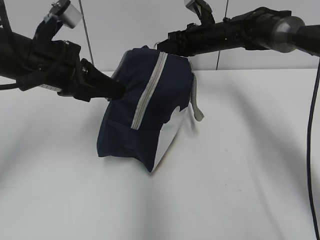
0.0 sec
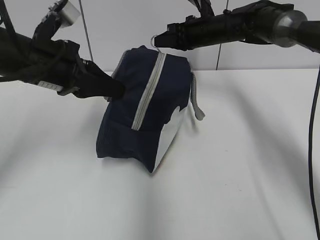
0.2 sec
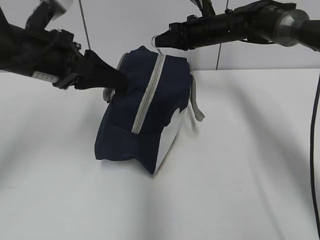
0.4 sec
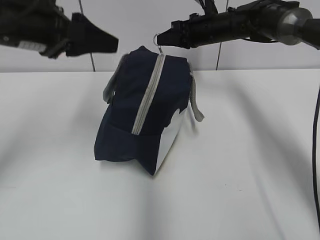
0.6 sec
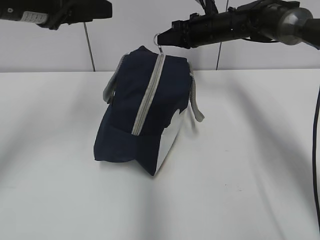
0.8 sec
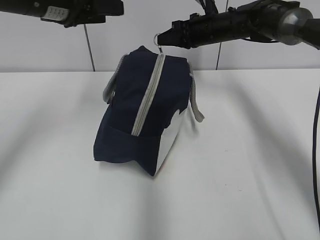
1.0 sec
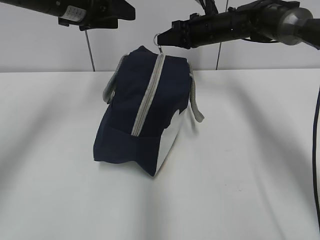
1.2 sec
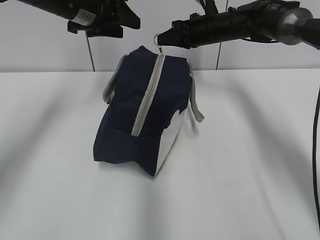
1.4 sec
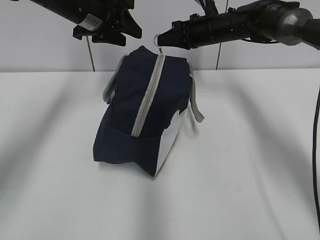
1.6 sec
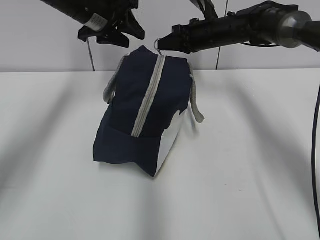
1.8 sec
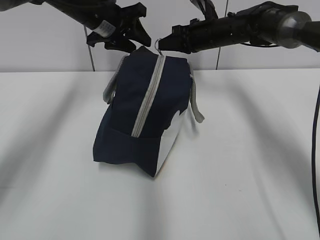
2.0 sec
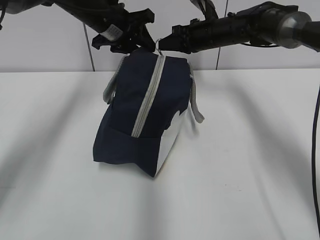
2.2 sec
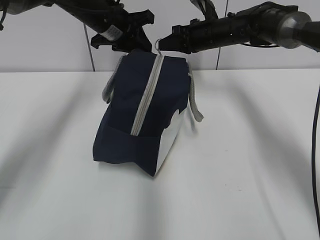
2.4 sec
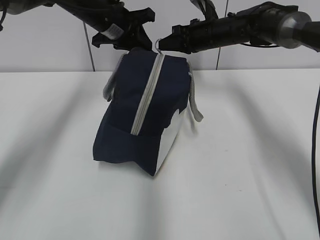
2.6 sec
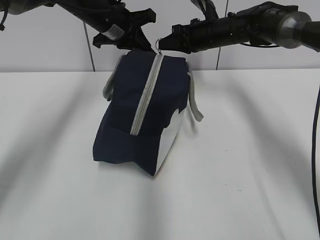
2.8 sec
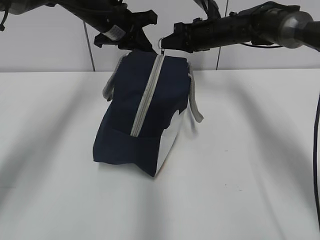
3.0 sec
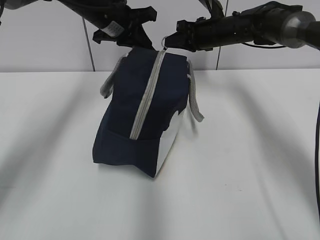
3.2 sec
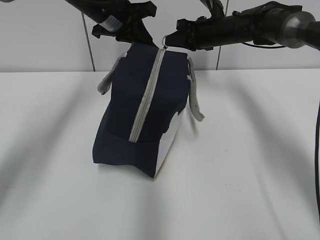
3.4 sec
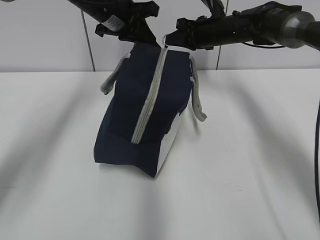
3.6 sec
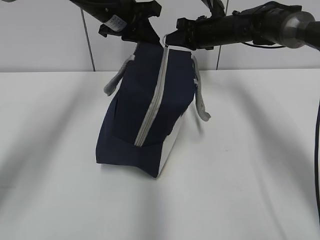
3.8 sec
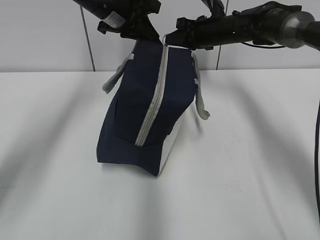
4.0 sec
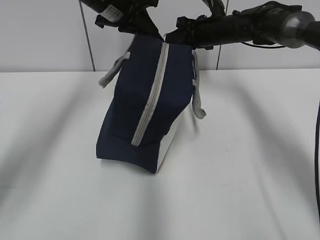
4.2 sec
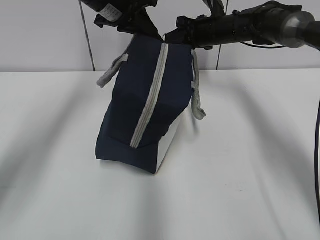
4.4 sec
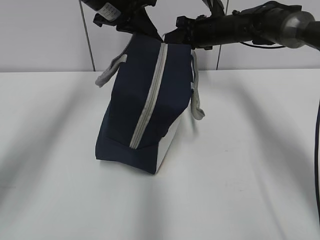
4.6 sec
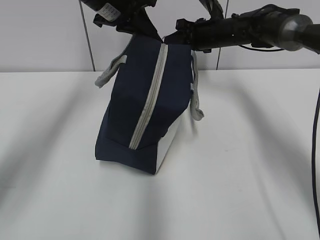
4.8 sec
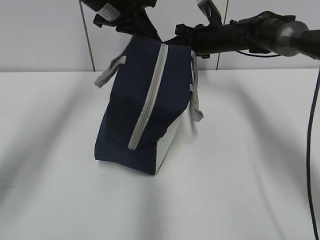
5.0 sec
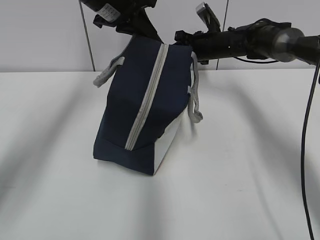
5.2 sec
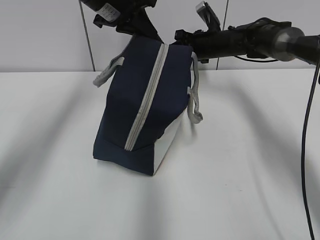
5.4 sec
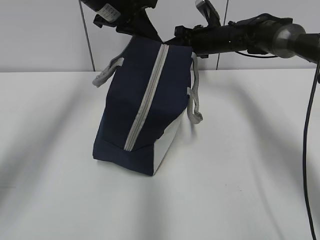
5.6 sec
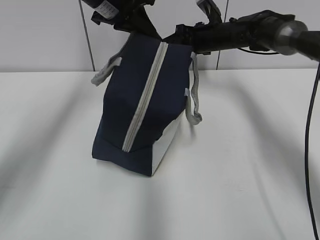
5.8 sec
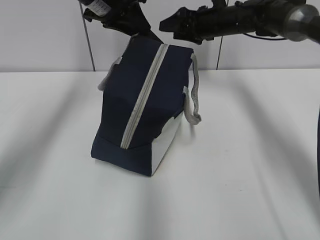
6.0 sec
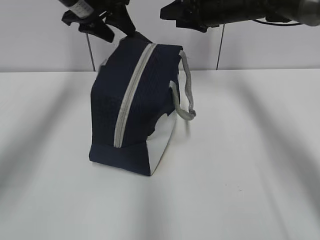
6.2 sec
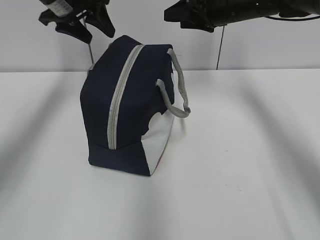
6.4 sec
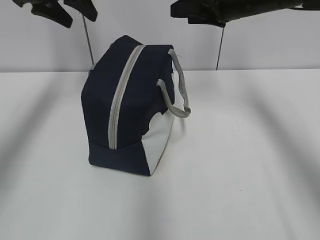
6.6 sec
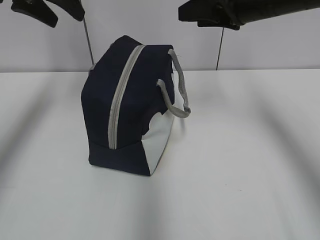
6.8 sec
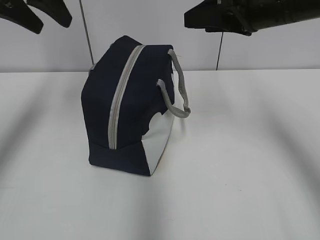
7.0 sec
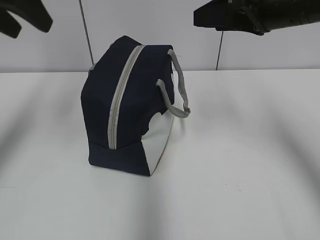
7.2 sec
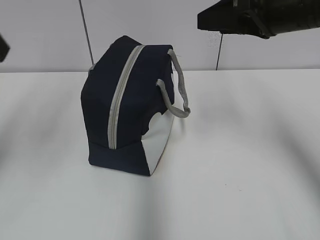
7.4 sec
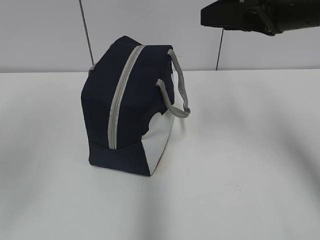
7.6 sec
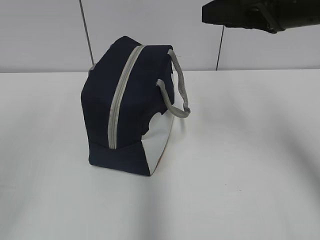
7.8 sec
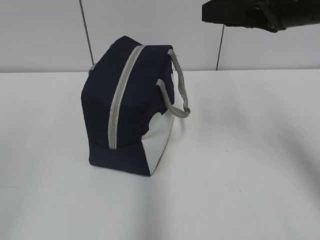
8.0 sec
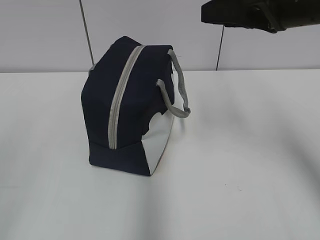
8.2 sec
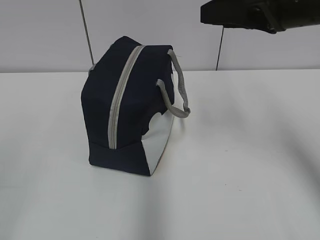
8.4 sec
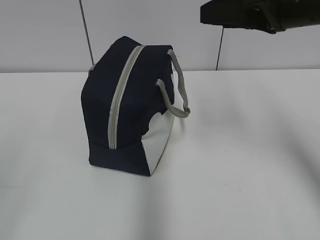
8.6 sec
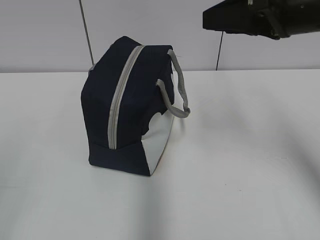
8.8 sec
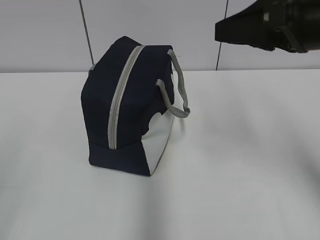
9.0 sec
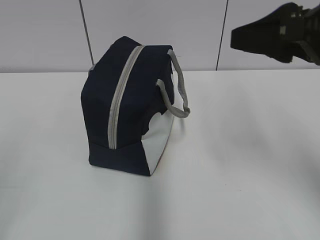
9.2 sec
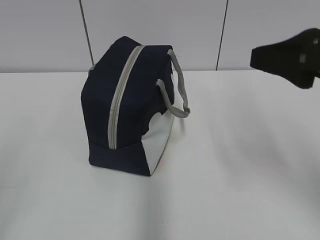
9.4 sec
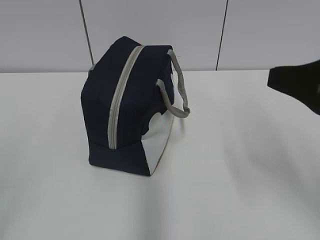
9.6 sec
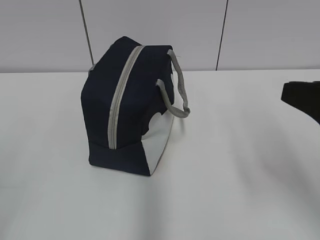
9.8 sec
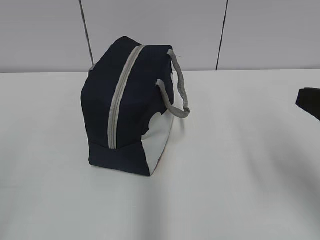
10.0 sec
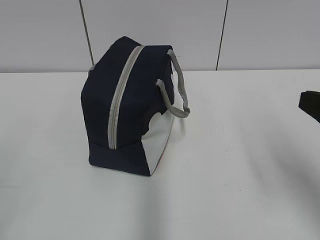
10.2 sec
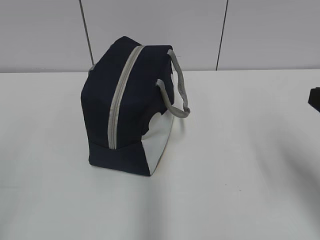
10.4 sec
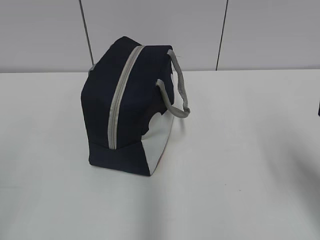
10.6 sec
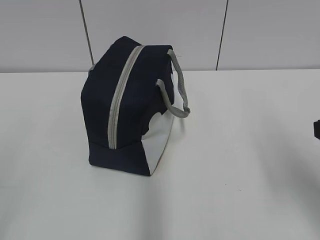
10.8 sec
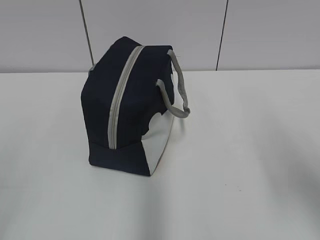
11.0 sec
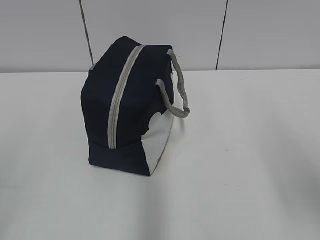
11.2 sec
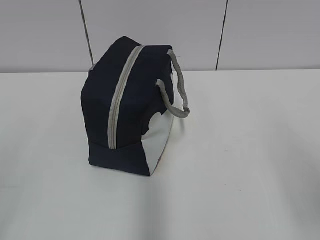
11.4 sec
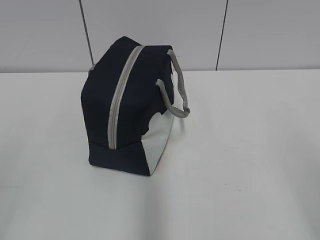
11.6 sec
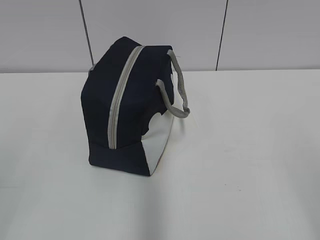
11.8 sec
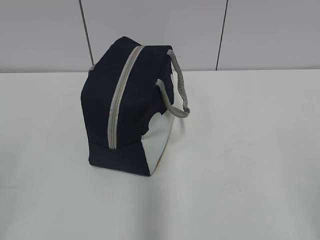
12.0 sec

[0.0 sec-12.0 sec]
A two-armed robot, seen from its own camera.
0.0 sec to 1.6 sec: The left gripper is displaced forward by some 15 cm, and opens its fingers.
1.6 sec to 3.0 sec: The left gripper closes.
3.0 sec to 4.4 sec: The left gripper ends up roughly 5 cm from where it was.
4.4 sec to 6.0 sec: The right gripper opens.
6.0 sec to 7.6 sec: The right gripper is displaced backward and upward by roughly 25 cm, while the left gripper goes some 35 cm backward and to the left, and opens up.
9.0 sec to 10.4 sec: The right gripper is displaced backward, downward and to the right by about 15 cm.
10.4 sec to 12.0 sec: The right gripper goes about 15 cm backward.

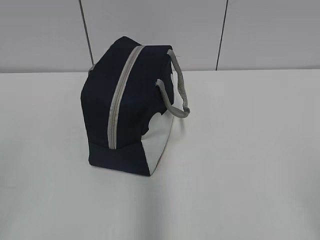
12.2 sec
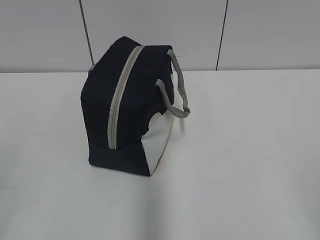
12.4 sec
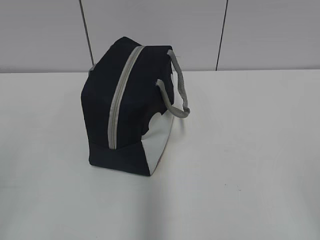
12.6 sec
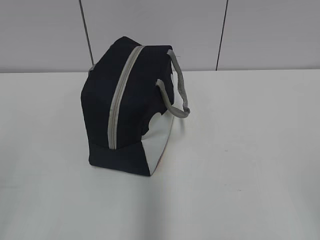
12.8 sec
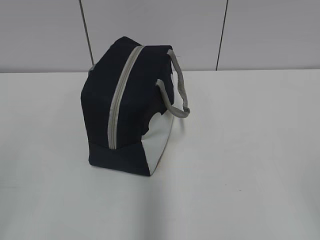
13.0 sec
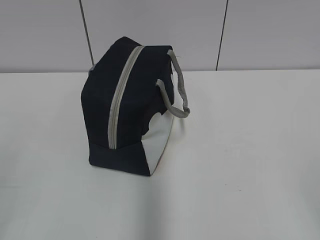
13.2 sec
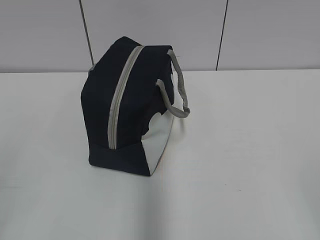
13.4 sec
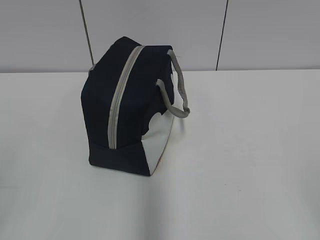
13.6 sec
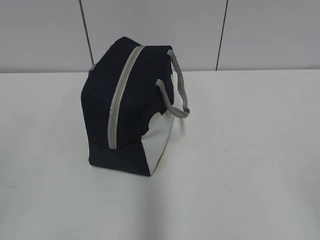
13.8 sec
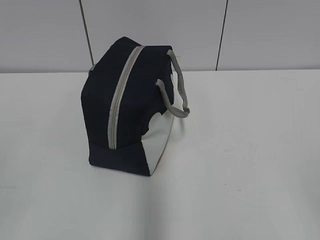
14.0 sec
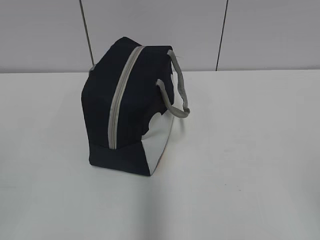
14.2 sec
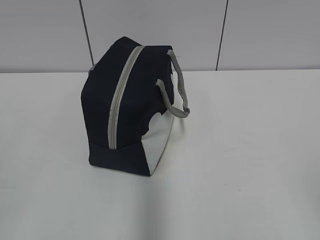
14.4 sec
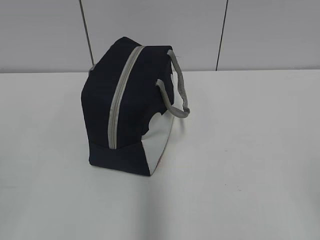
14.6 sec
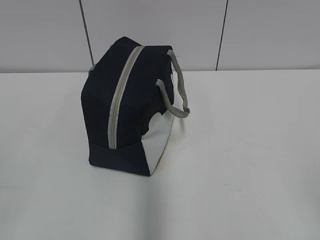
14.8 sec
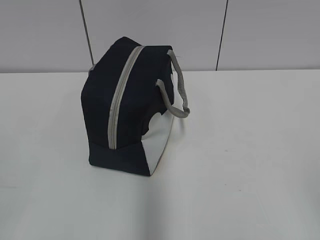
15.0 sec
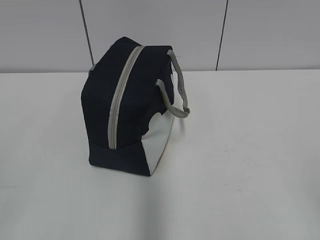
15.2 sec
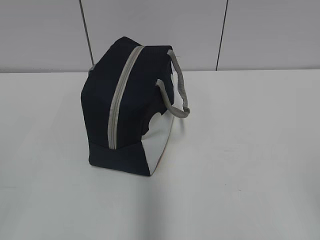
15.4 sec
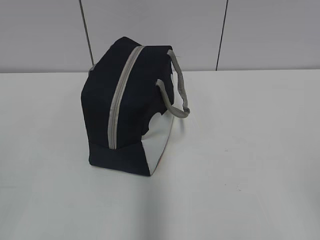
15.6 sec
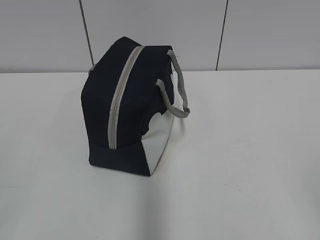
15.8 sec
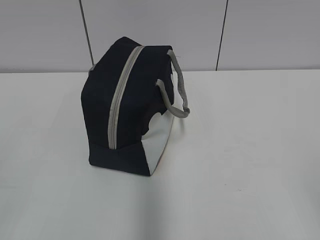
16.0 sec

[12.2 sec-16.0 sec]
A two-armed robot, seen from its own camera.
14.8 sec to 16.0 sec: Neither gripper changes place.

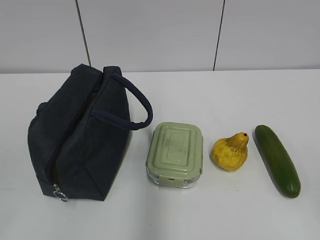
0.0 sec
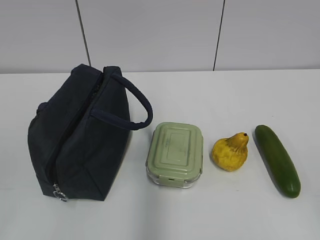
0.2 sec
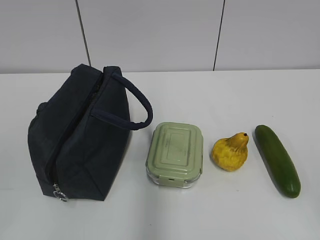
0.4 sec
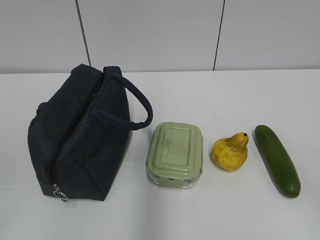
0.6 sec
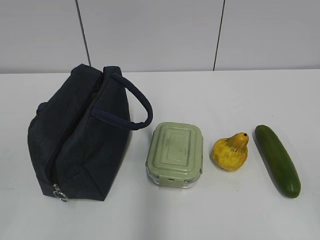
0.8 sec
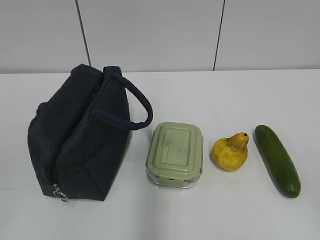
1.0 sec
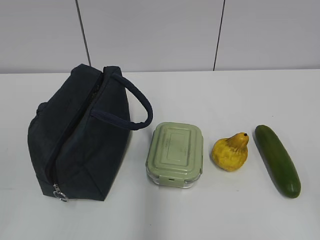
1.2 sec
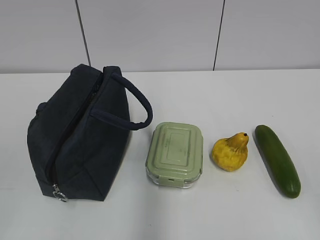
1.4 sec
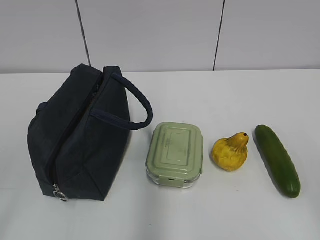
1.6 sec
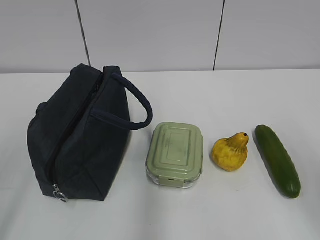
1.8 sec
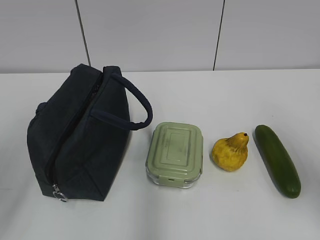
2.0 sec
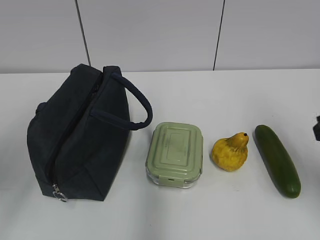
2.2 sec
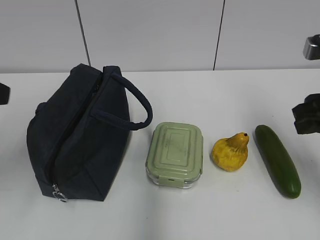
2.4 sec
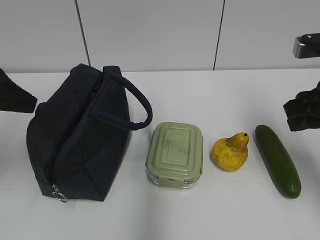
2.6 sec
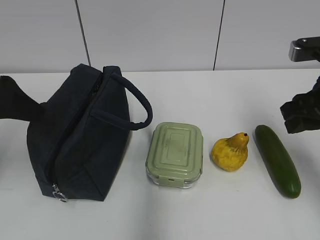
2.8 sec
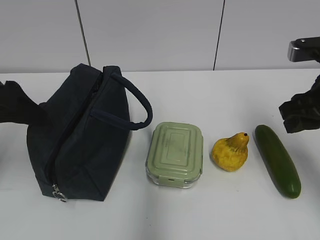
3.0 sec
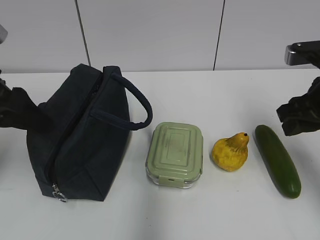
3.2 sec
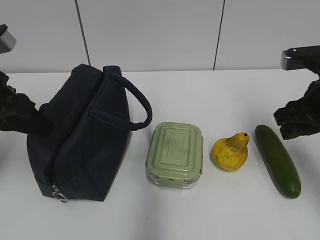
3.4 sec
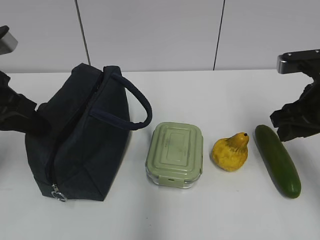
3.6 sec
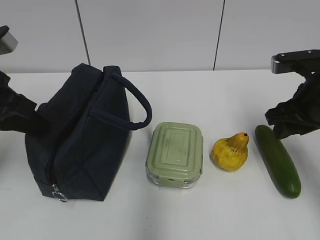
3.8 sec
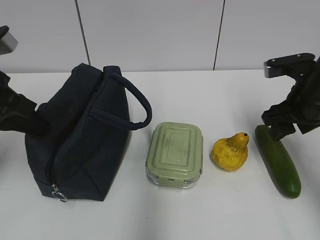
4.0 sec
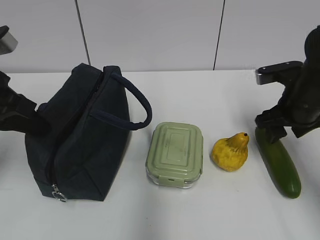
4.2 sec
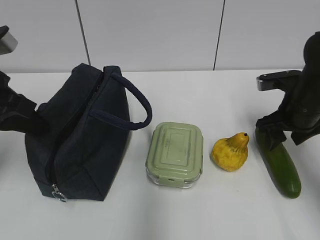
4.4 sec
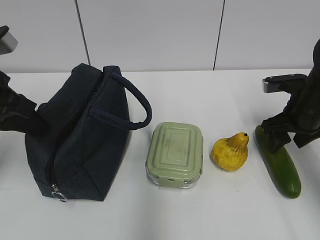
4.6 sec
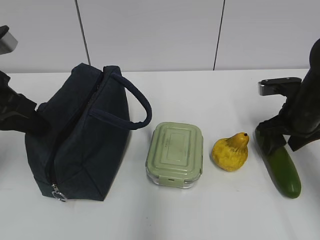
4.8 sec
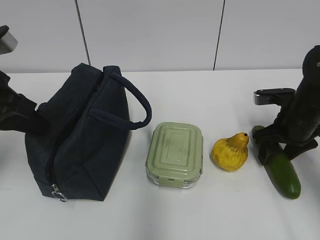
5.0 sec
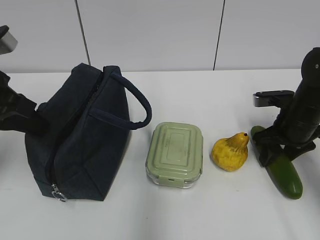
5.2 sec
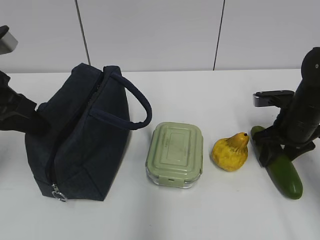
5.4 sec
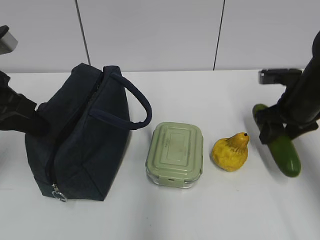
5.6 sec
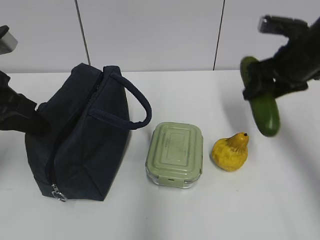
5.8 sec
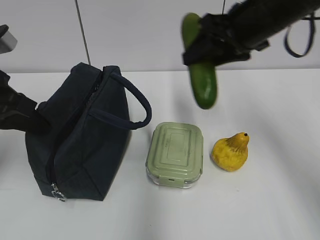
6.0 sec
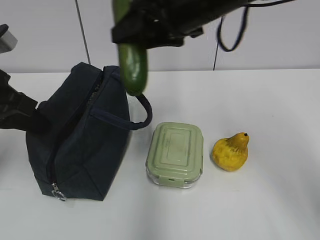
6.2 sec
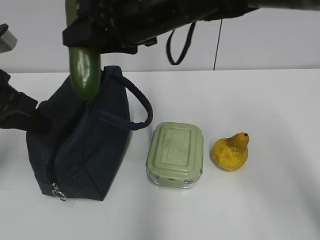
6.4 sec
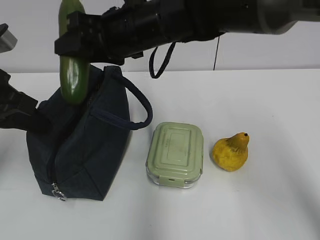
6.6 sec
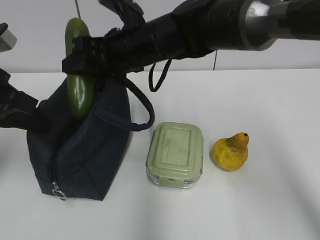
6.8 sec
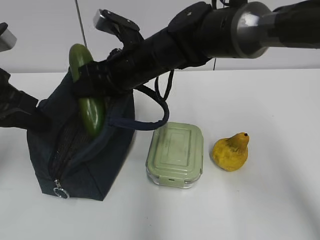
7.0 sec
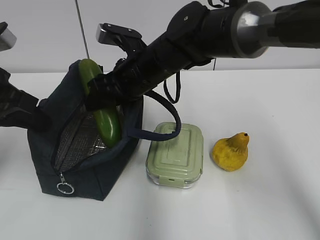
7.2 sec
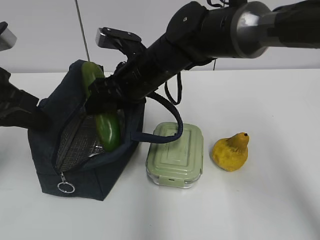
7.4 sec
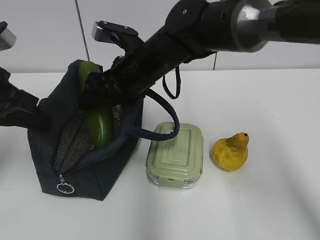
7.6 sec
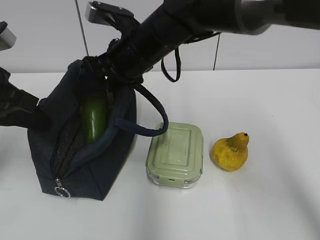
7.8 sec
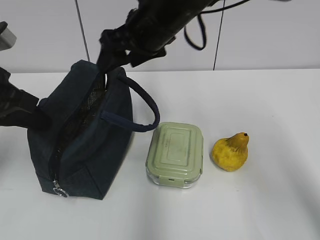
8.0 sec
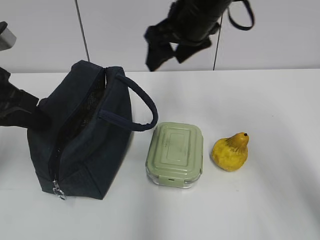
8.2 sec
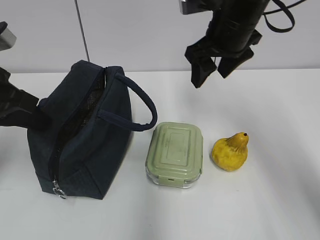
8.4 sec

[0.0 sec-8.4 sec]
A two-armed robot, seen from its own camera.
Step, 0.0 sec to 5.0 sec: Grab the cucumber with your right hand.
Step, 7.0 sec to 7.8 sec: Place it into the bag with your right hand.
1.4 sec to 2.8 sec: Both grippers move forward, approximately 25 cm.
2.8 sec to 4.2 sec: The right gripper goes about 10 cm forward and downward, while the left gripper closes up.
4.2 sec to 5.6 sec: The grippers stay close to where they were, moving slightly.
5.6 sec to 7.0 sec: The right gripper goes approximately 25 cm to the left.
7.0 sec to 8.4 sec: The right gripper heads to the right, covering approximately 15 cm.
